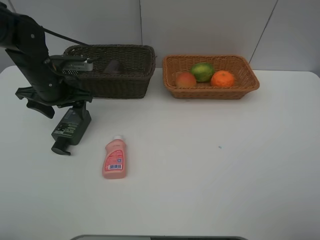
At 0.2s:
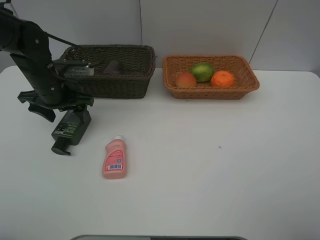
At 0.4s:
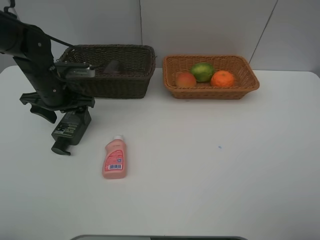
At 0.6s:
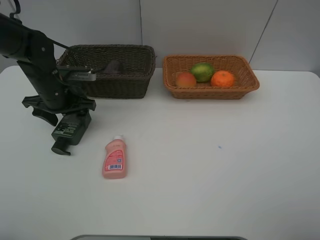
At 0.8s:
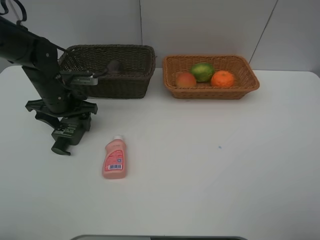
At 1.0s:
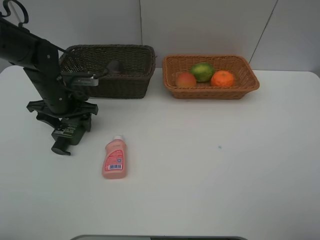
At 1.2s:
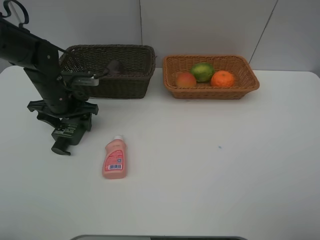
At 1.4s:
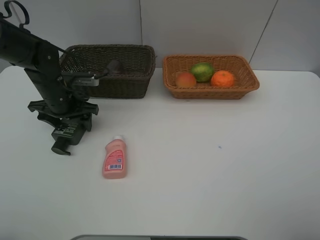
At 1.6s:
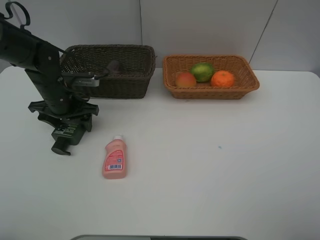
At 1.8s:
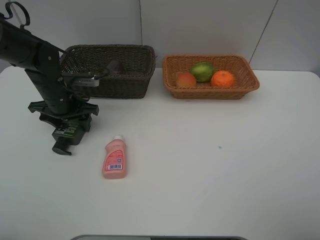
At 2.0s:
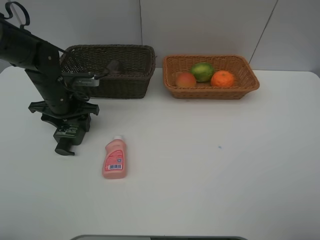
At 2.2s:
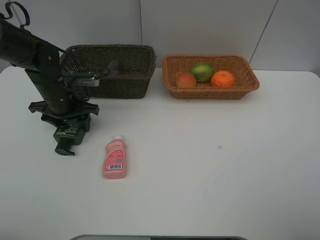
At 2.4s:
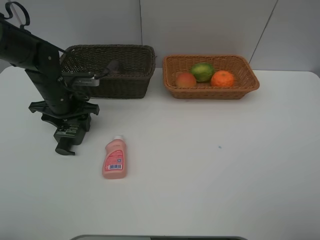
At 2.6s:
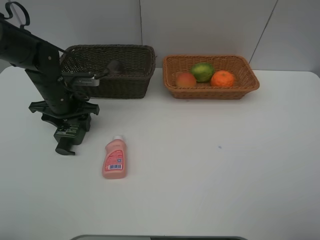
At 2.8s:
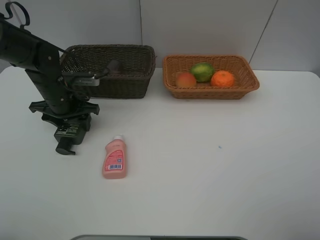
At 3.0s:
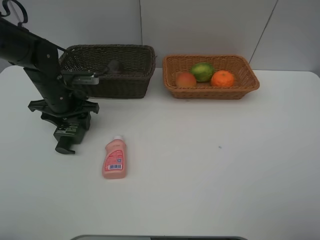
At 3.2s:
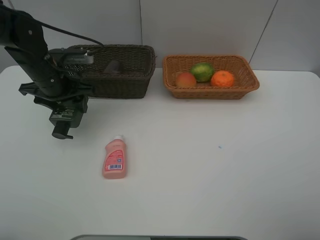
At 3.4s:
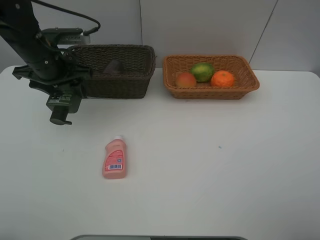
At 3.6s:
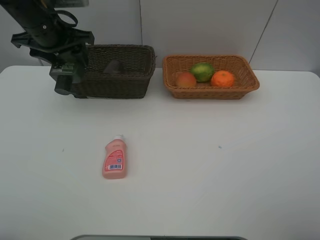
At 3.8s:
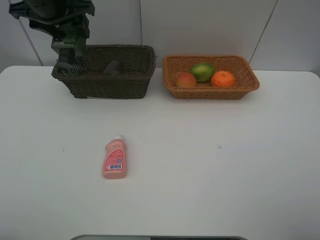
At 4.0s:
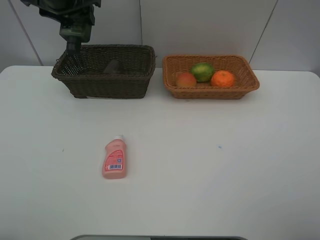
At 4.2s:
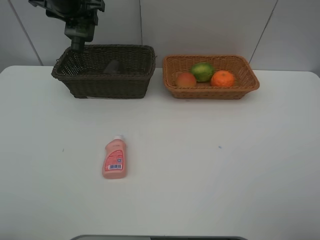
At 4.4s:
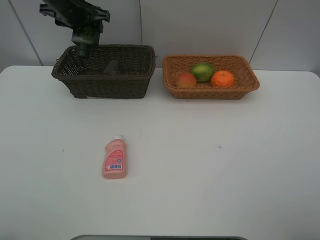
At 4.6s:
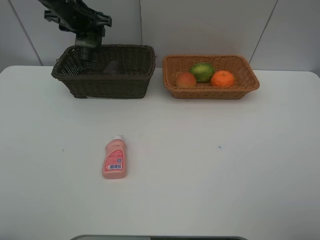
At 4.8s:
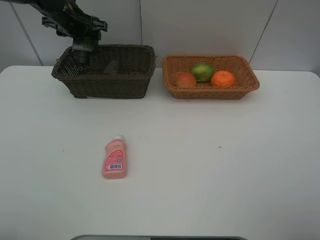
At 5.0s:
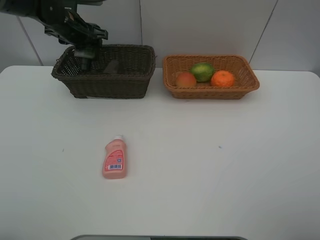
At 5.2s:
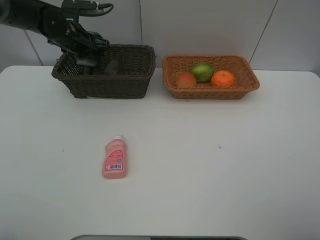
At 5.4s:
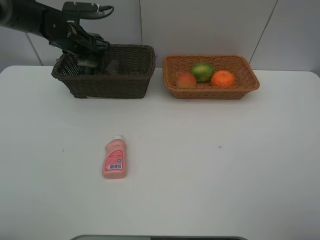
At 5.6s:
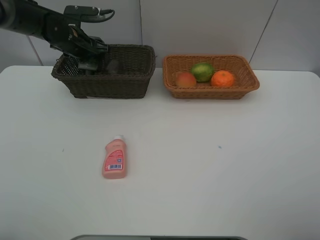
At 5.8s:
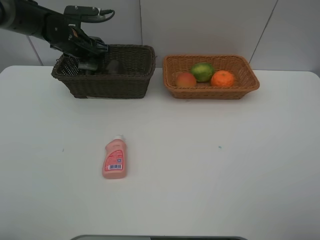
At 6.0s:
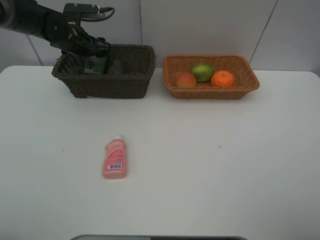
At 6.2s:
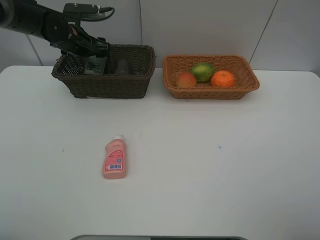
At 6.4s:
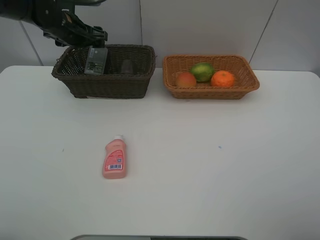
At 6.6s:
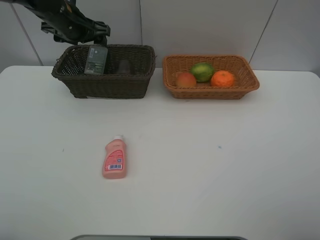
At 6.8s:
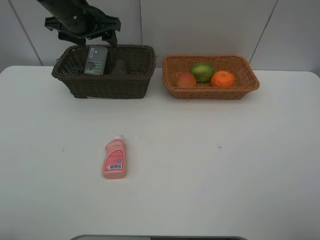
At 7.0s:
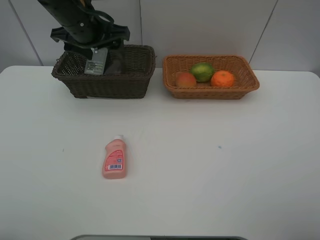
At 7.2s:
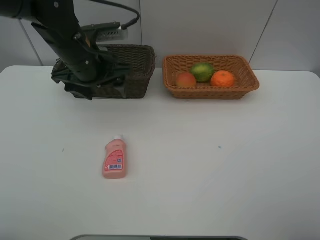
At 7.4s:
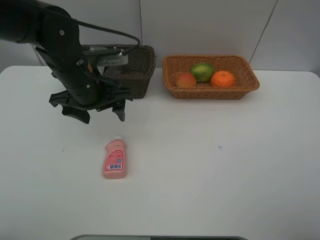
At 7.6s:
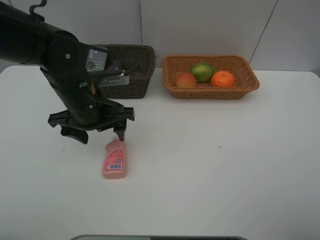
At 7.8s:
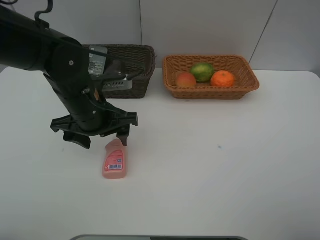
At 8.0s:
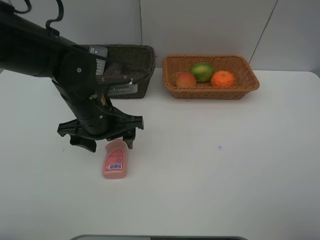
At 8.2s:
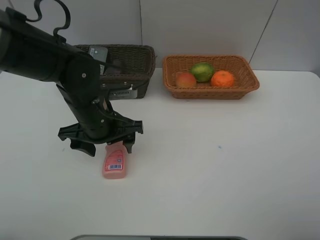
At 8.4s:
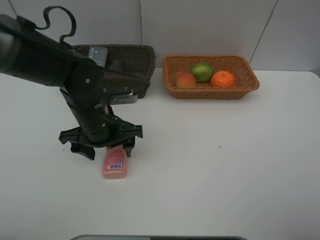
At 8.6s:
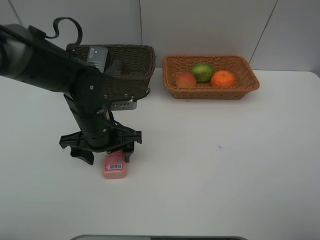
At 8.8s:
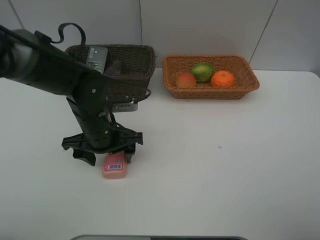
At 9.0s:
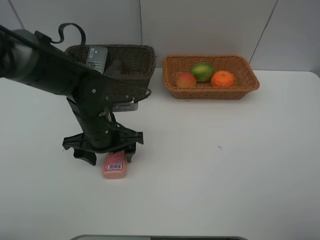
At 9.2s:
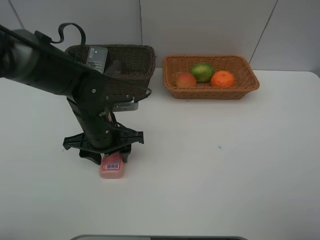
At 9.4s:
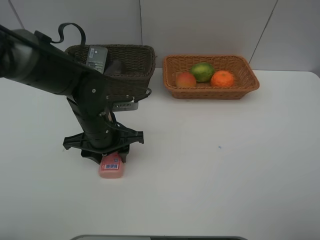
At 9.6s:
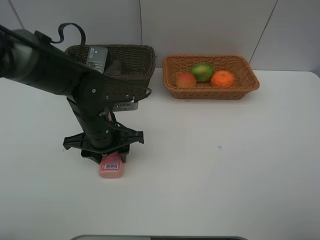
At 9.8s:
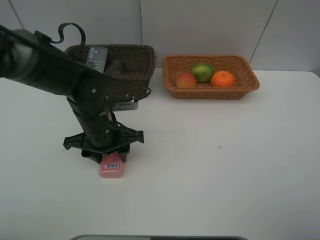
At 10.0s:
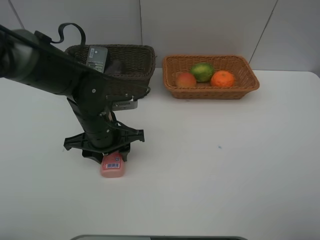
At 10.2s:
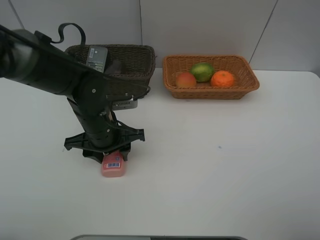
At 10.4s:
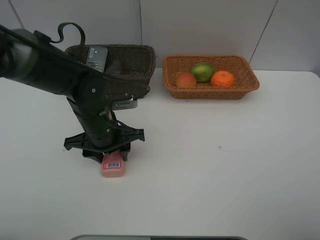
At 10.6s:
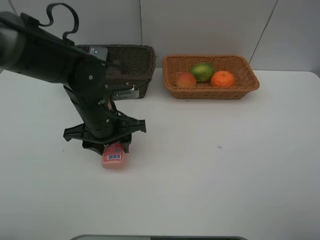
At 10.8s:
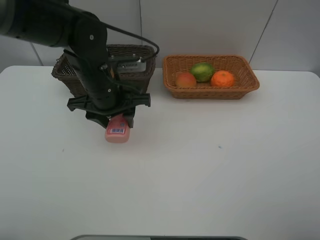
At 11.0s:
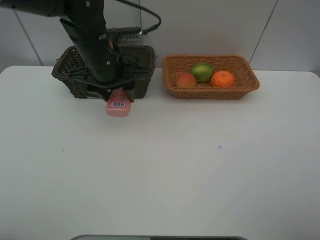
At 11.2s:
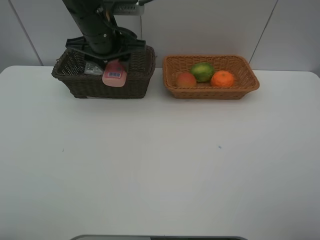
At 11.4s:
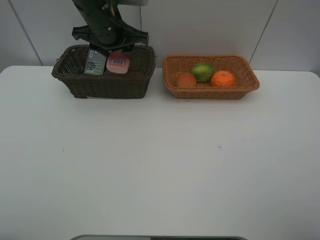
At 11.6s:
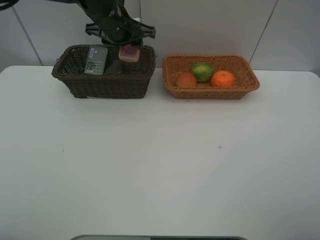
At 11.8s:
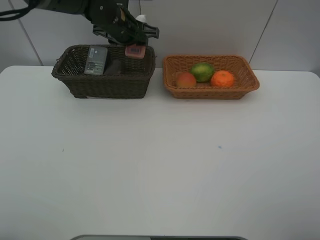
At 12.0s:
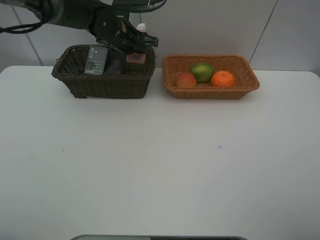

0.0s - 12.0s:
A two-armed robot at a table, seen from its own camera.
Task of the whole recording: place multiple objects separately in different baskets.
0.0s - 1.6s: The grippers move only a little.
1.6s - 3.0s: The left gripper closes its fingers.
3.0s - 4.4s: The left gripper is displaced upward and forward by roughly 20 cm.
4.4s - 6.0s: The left gripper is displaced downward by approximately 10 cm, and opens its fingers.
6.0s - 7.6s: The left gripper heads backward and to the right, covering roughly 25 cm.
7.6s - 9.0s: The left gripper heads downward, covering about 5 cm.
9.0s - 10.4s: The left gripper closes its fingers.
10.4s - 12.0s: The left gripper moves forward, roughly 20 cm.

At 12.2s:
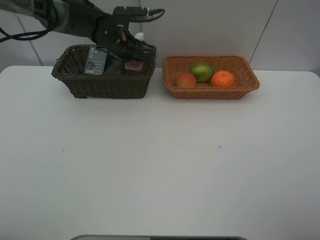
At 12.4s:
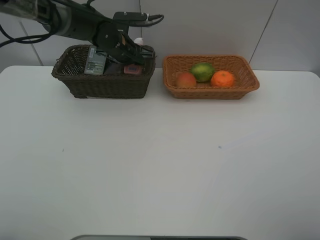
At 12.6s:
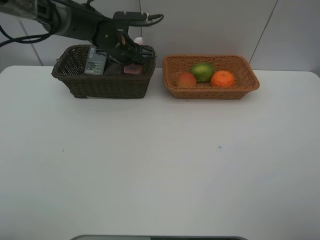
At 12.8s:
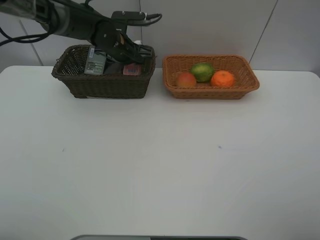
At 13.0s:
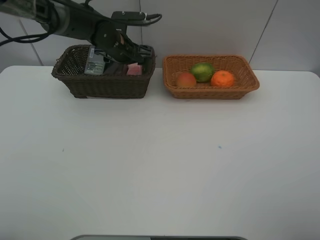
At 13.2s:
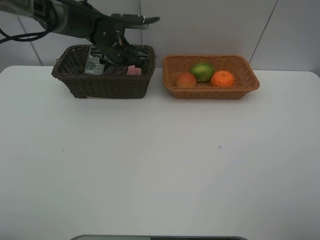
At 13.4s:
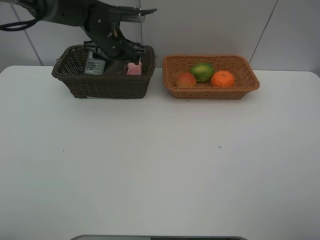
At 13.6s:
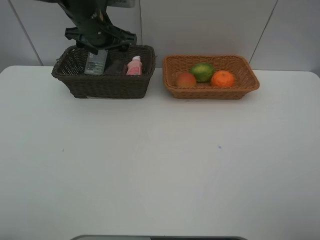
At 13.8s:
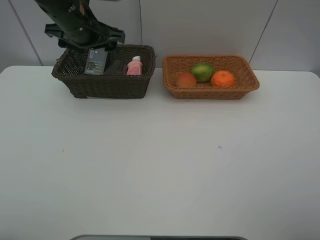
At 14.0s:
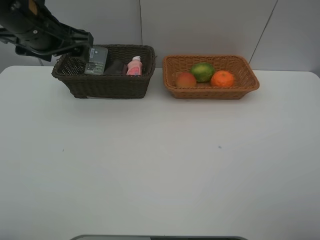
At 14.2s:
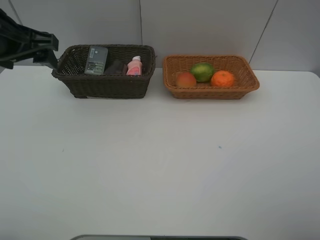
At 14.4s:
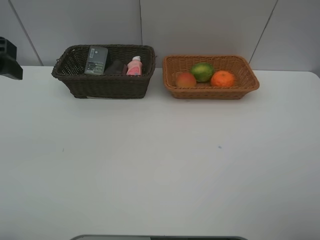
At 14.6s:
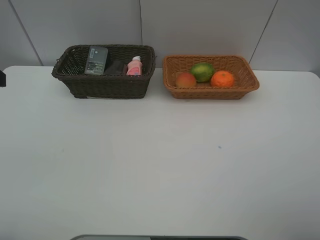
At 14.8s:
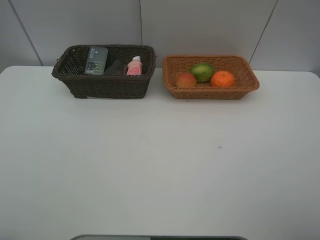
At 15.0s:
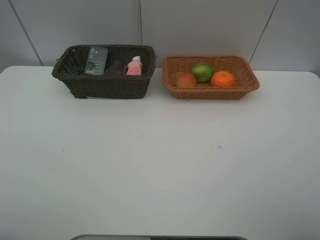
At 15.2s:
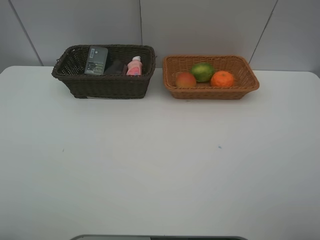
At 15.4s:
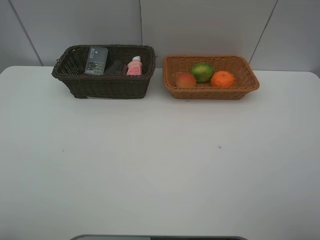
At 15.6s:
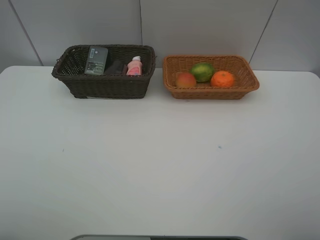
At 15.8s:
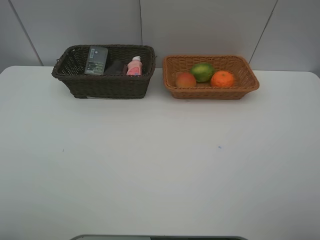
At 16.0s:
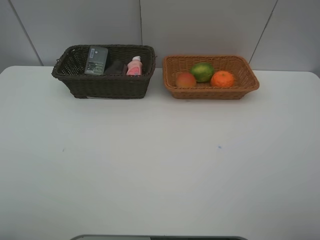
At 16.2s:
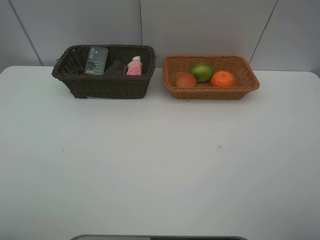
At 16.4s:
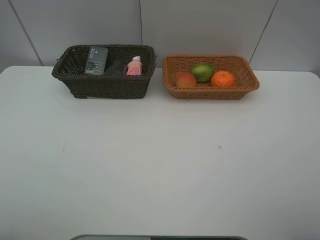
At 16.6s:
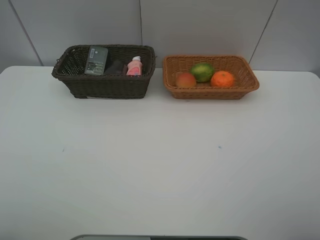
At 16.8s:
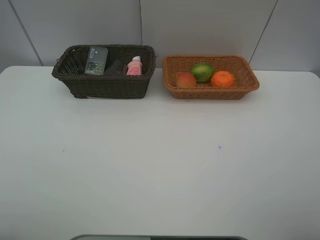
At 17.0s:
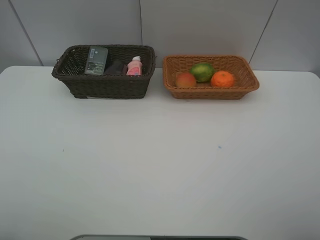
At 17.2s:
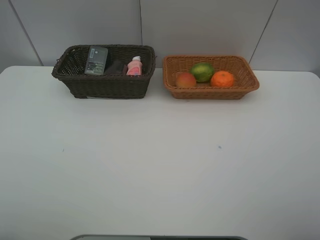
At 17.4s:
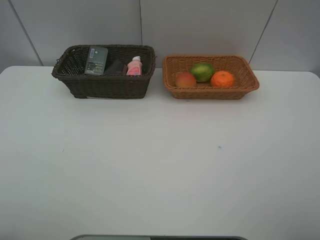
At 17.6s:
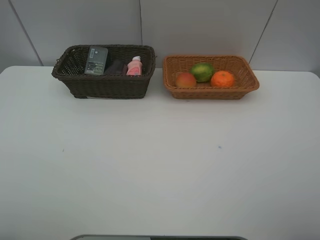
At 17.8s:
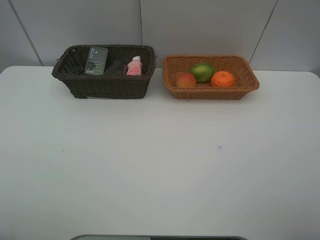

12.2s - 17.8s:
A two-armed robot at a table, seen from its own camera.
Task of the whole recording: place multiple objects separately in different baskets.
12.2s - 13.6s: The left gripper heads upward, covering roughly 5 cm, and opens its fingers.
13.6s - 15.0s: The left gripper travels backward and to the left by some 40 cm.
